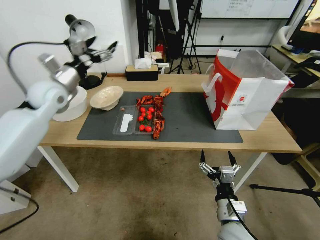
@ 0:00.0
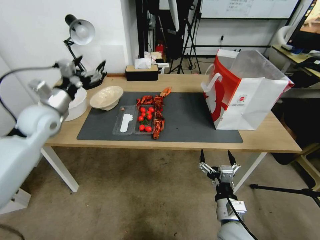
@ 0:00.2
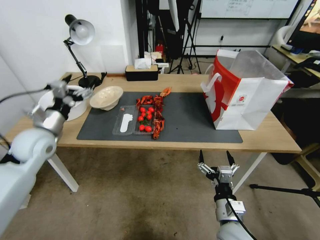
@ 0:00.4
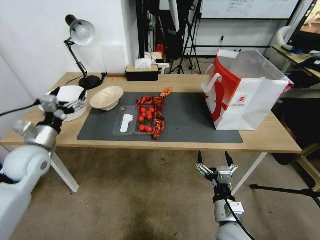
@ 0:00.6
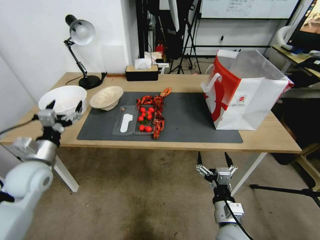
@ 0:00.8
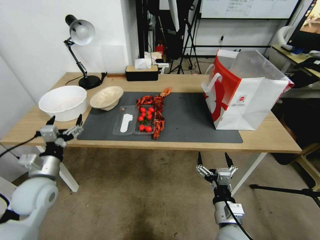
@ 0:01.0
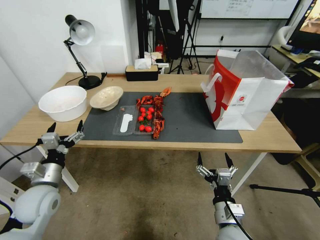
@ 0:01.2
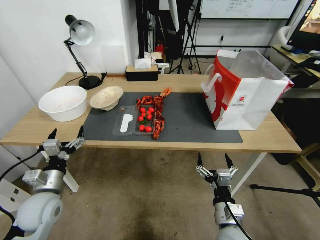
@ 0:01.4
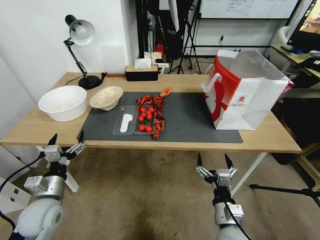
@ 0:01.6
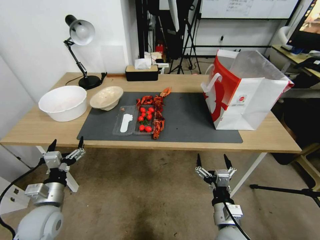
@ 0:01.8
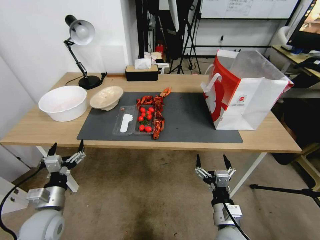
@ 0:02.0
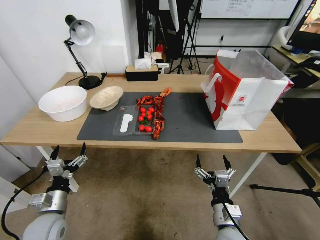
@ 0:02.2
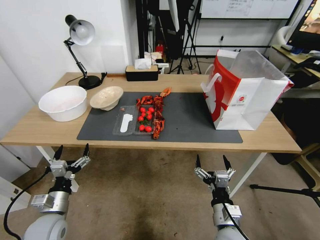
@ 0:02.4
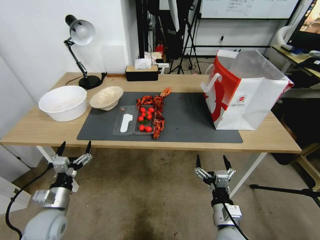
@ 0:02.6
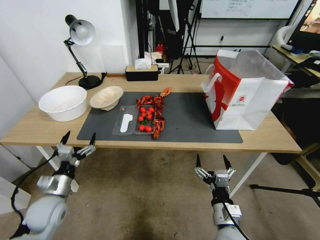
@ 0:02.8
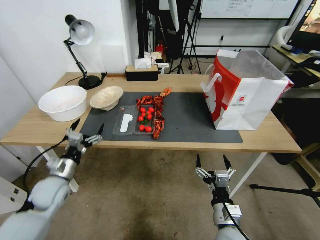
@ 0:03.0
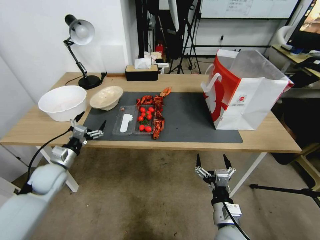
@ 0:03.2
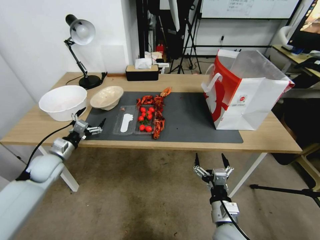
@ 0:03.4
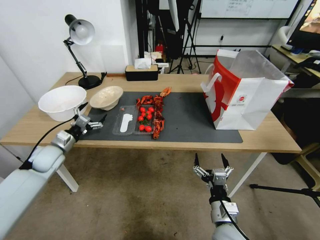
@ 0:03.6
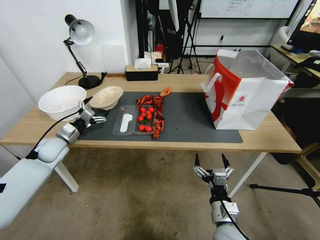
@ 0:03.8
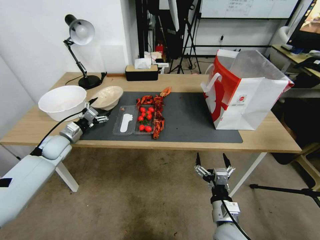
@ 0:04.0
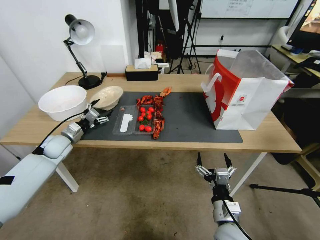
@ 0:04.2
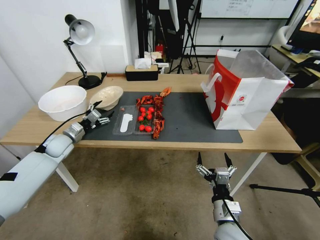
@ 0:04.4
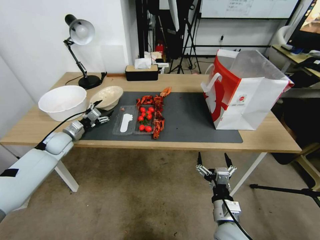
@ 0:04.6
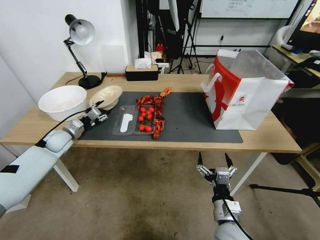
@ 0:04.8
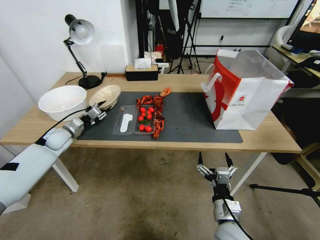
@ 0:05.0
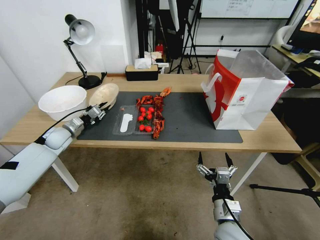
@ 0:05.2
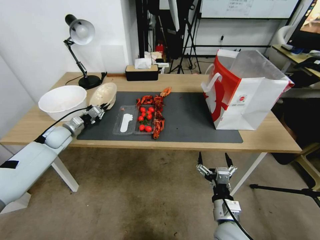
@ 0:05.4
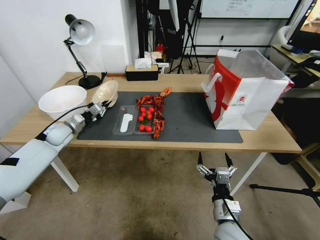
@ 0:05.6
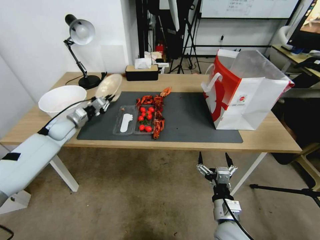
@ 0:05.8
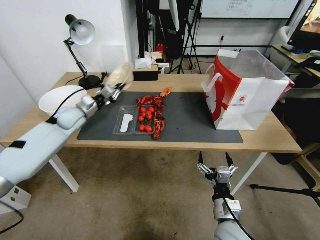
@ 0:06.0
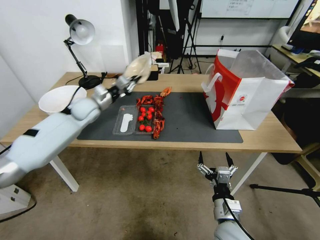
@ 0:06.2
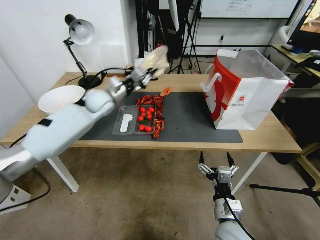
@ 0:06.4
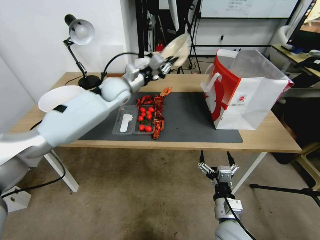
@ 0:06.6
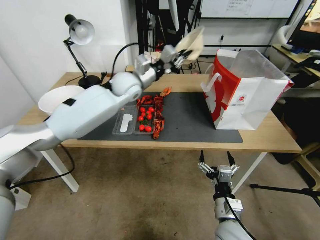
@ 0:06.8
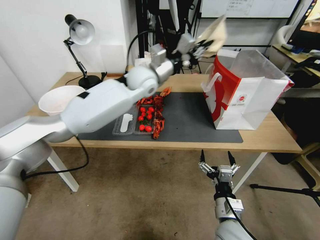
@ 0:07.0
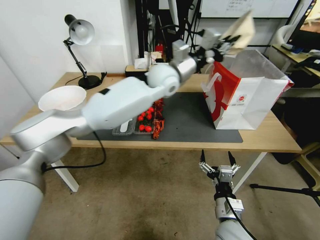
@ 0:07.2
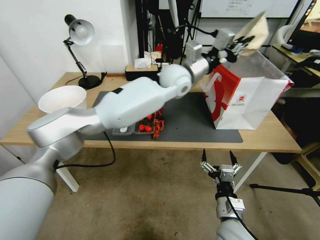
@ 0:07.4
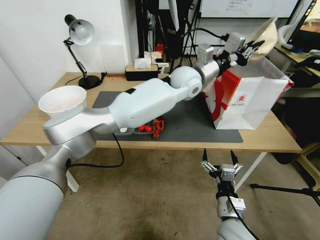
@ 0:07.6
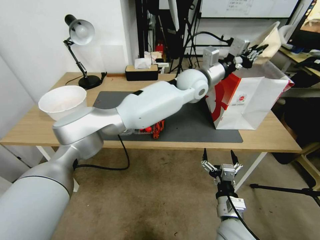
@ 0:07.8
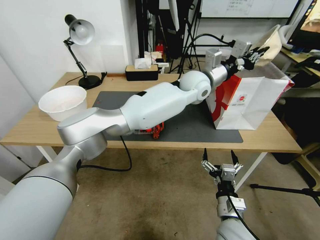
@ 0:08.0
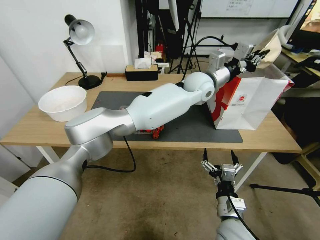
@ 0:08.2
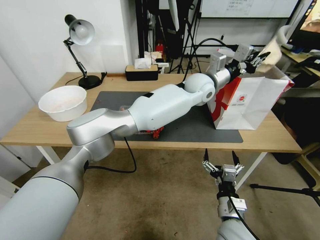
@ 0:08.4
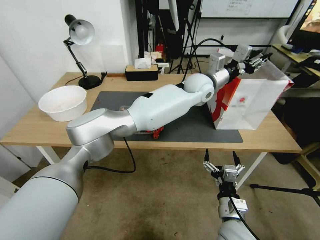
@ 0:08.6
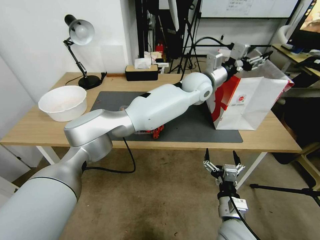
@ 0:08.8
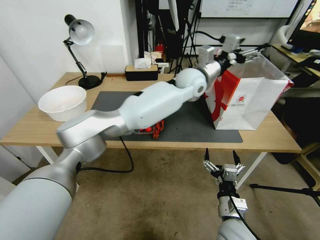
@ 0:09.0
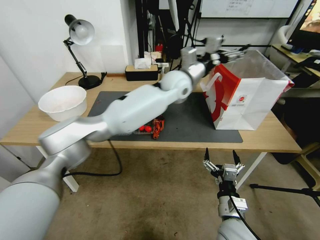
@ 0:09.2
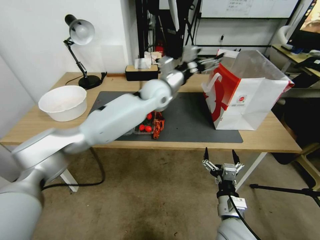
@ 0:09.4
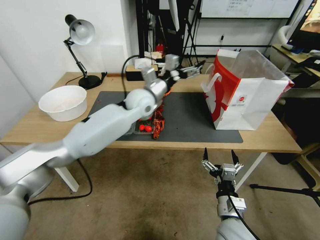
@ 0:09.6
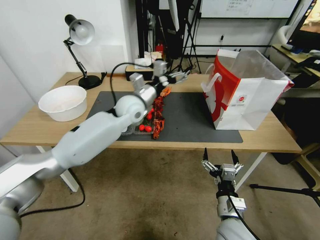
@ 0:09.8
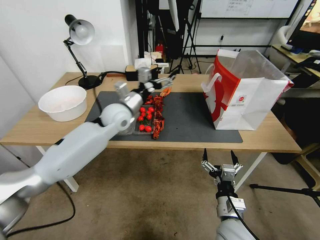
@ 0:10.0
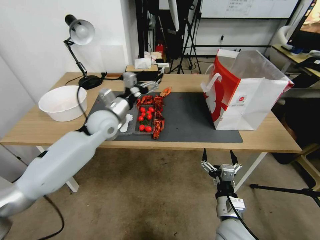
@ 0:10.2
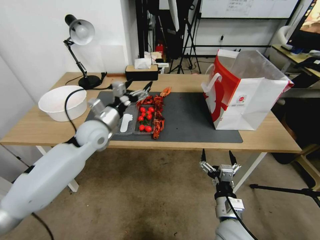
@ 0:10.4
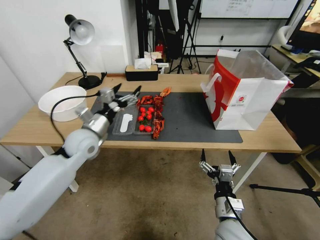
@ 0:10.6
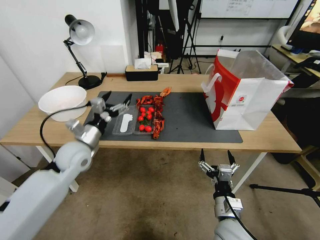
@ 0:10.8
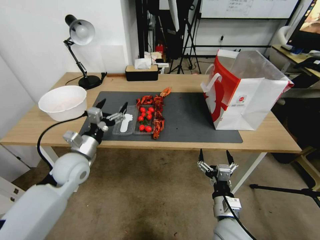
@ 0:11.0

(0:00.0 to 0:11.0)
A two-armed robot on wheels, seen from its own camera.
0:00.0 - 0:01.6: The left gripper heads backward and downward, covering approximately 35 cm.
0:01.6 - 0:03.2: The left gripper moves forward, some 10 cm.
0:03.2 - 0:04.8: The left gripper travels forward by roughly 15 cm, and closes its fingers.
0:04.8 - 0:06.2: The left gripper travels to the right, upward and forward by about 20 cm, and closes up.
0:06.2 - 0:07.8: The left gripper heads to the right, covering roughly 35 cm.
0:07.8 - 0:09.4: The left gripper shifts about 5 cm to the left, and opens.
0:09.4 - 0:11.0: The left gripper travels to the left, backward and downward by about 40 cm.

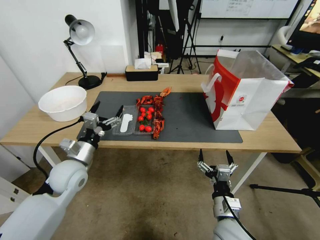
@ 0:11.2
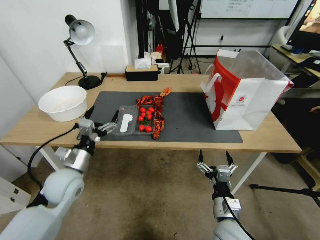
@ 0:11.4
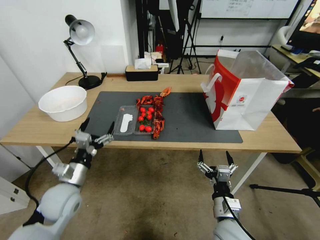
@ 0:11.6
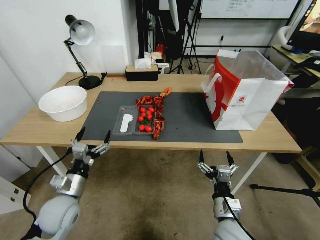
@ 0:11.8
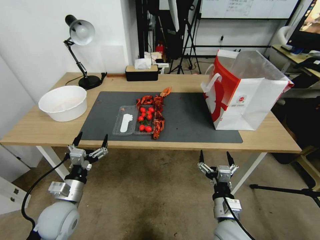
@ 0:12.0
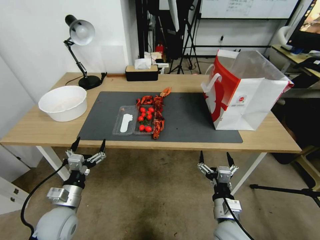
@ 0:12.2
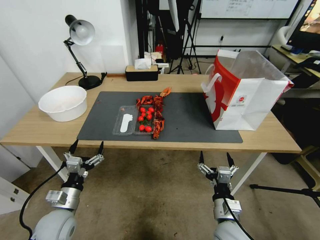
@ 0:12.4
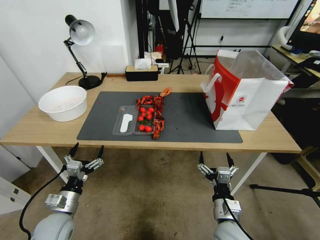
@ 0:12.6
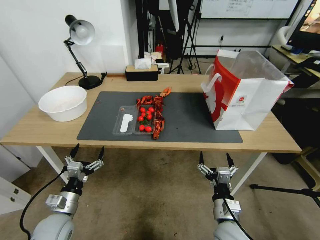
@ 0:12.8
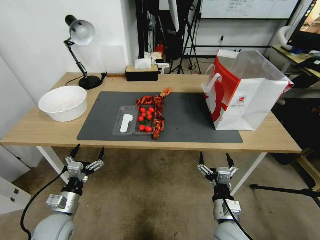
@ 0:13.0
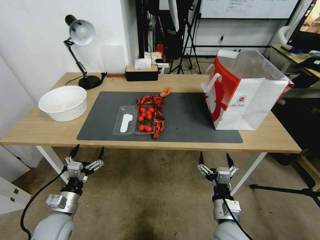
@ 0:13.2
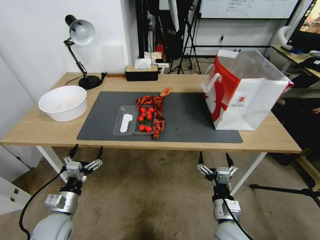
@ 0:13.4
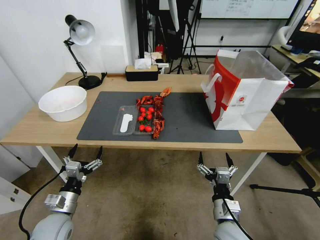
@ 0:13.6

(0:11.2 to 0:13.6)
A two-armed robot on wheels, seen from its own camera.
0:11.2 - 0:12.4: The left gripper travels backward and downward by some 15 cm.
0:12.4 - 0:13.6: The grippers move only a little.
